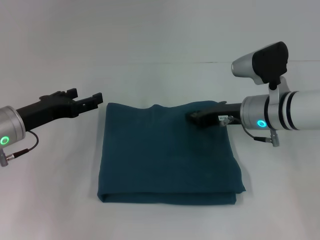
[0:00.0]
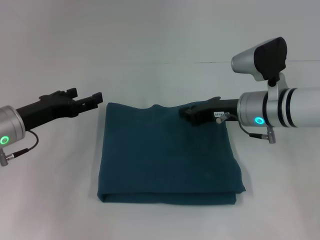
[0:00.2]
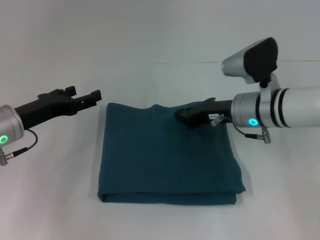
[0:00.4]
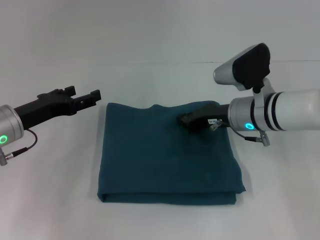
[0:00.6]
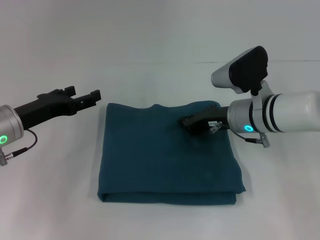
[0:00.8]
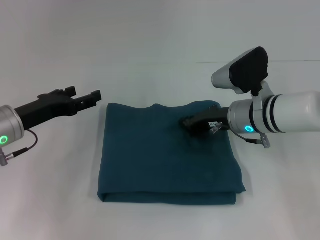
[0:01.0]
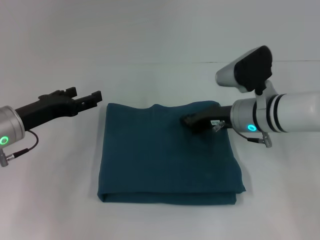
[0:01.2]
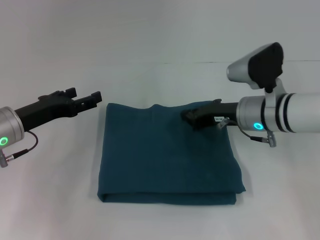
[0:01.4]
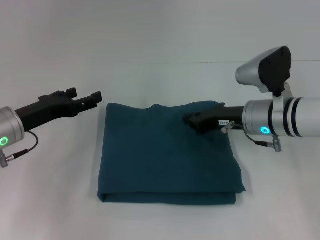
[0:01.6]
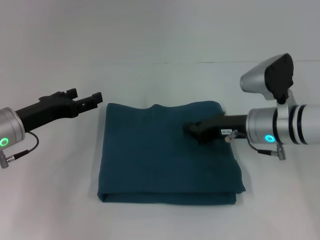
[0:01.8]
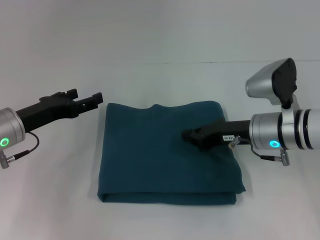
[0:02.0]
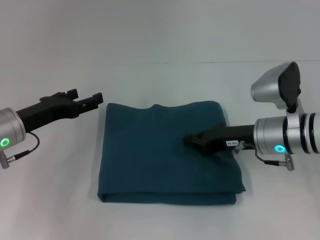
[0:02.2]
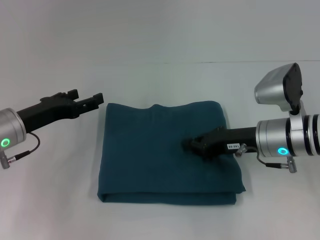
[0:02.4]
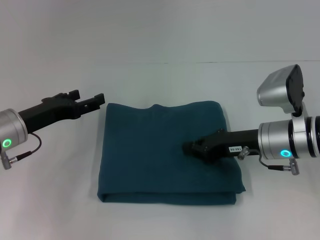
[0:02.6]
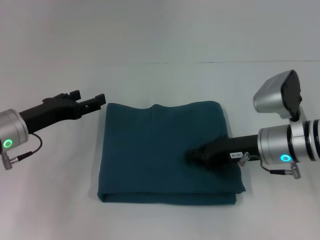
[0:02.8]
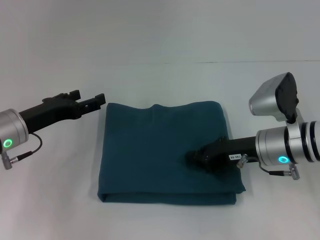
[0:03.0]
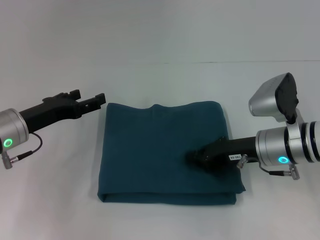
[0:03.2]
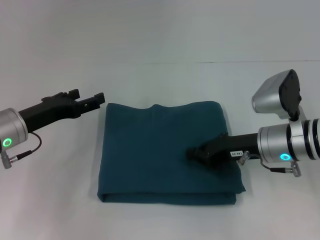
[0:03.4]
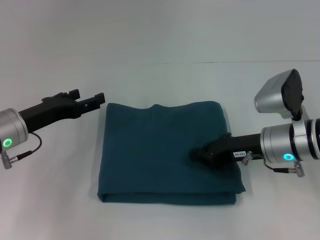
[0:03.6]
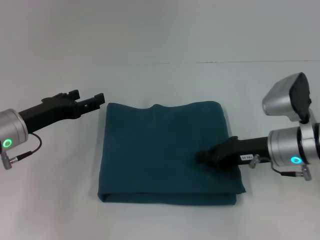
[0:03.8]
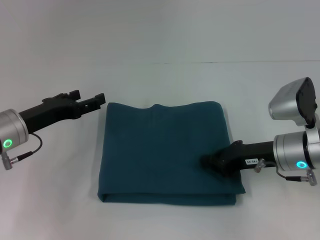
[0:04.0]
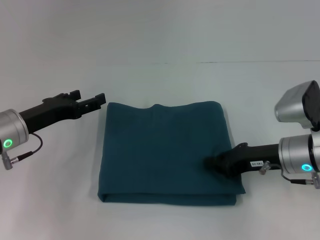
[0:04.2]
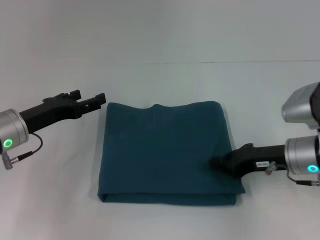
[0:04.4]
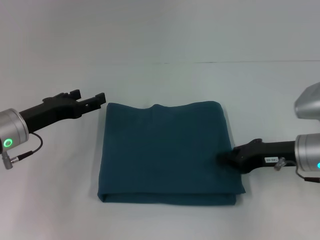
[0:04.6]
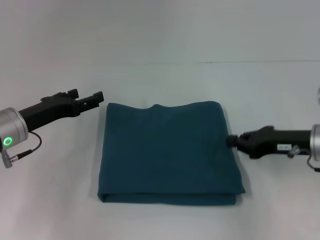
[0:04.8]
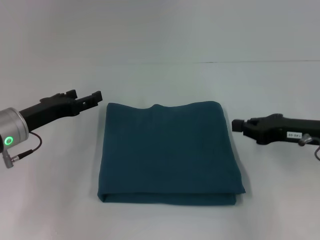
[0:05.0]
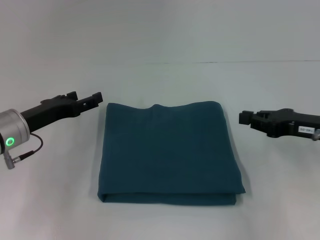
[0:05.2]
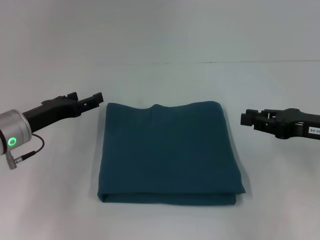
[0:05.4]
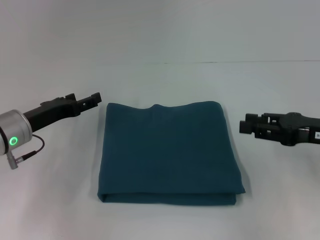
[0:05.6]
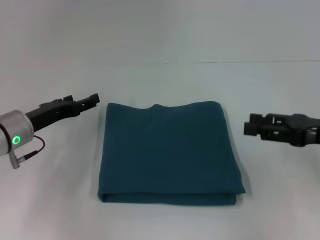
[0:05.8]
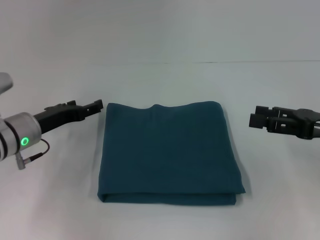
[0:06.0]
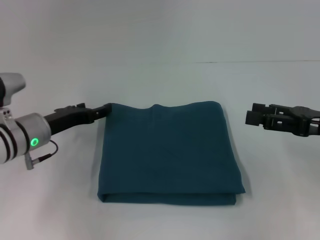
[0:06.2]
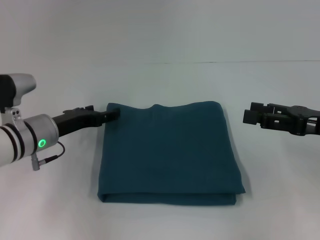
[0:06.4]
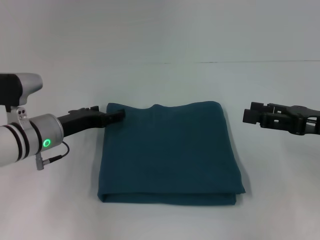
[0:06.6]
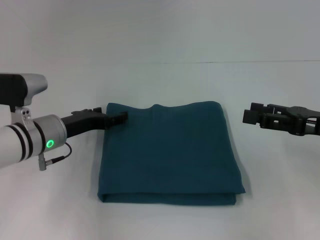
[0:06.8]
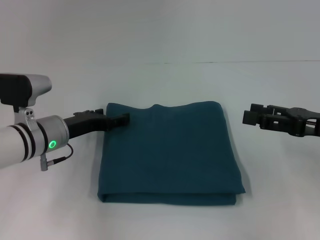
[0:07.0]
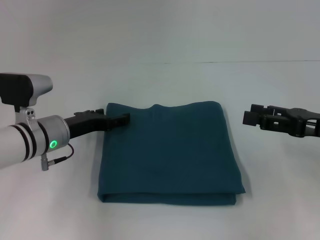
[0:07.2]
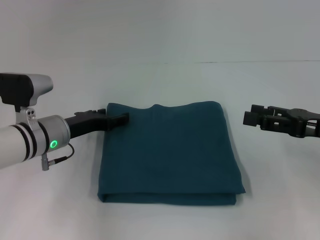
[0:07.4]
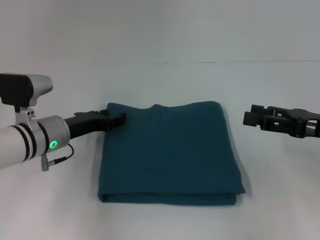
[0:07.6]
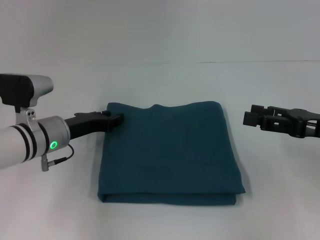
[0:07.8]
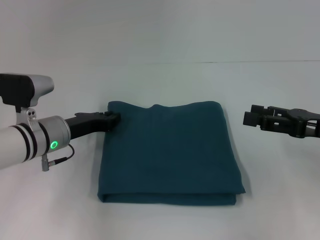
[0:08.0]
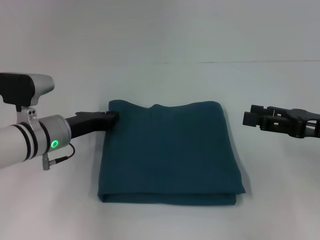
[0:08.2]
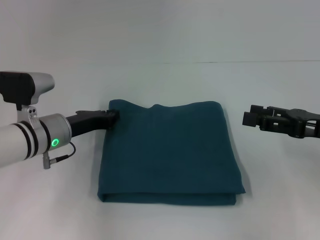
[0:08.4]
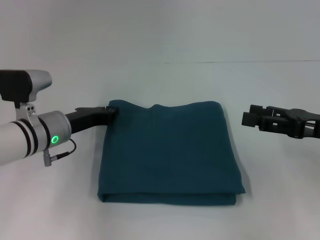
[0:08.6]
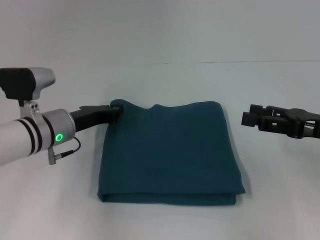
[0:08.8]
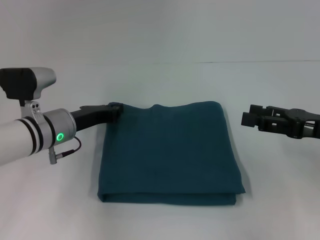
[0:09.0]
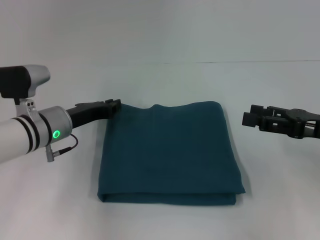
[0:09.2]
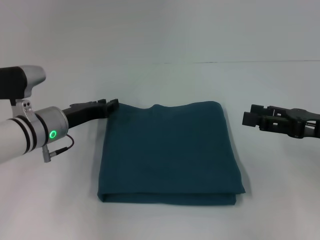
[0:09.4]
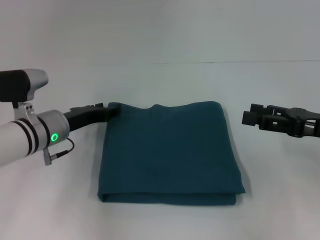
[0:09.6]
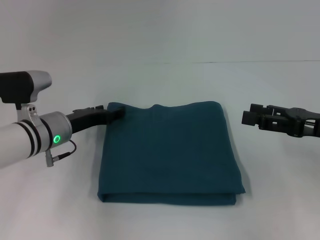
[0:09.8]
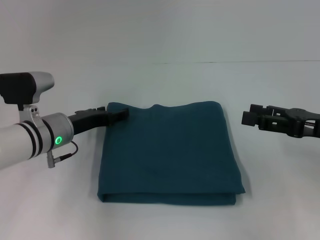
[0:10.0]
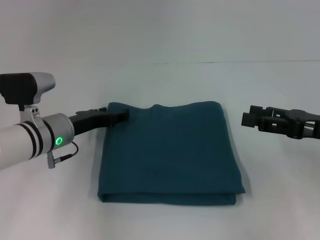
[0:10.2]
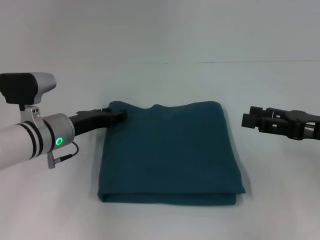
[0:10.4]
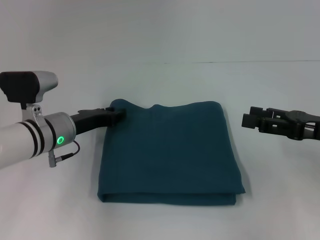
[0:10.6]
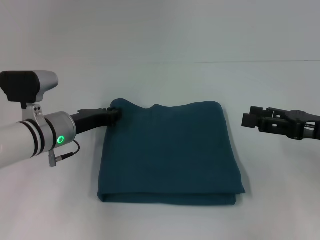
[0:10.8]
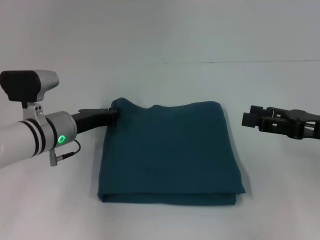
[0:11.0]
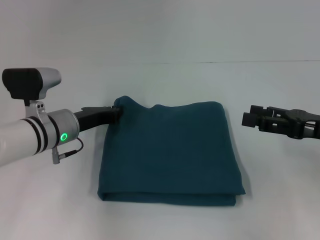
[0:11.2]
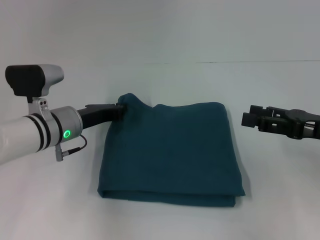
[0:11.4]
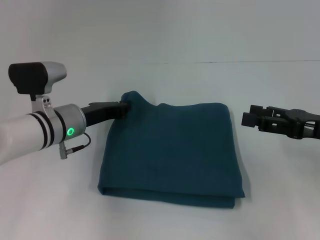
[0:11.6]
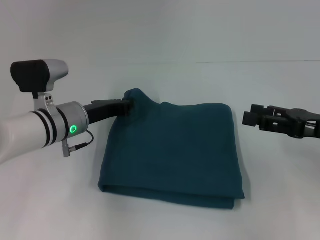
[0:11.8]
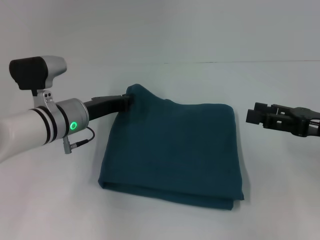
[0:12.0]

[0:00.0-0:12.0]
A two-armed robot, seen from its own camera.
0:00.0 to 0:03.0: The grippers stay close to where they were, moving slightly.
0:03.0 to 0:04.4: The grippers make only small movements.
0:04.4 to 0:06.0: The right gripper is displaced to the right and upward by approximately 10 cm, and opens.
0:06.0 to 0:07.6: The grippers make only small movements.
0:07.6 to 0:09.0: The left gripper closes.
0:09.0 to 0:10.4: The left gripper opens its fingers.
0:10.4 to 0:12.0: The left gripper closes up.

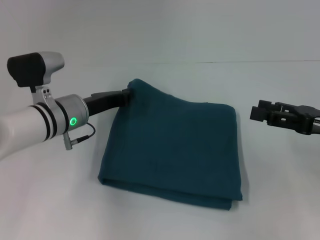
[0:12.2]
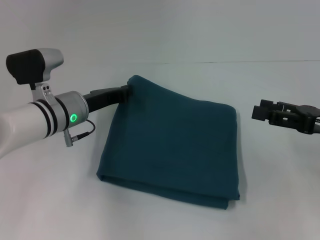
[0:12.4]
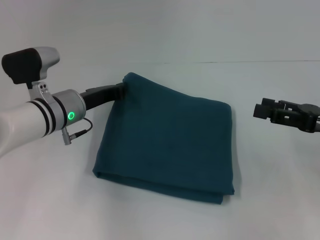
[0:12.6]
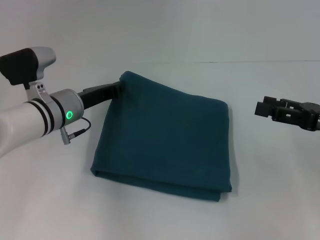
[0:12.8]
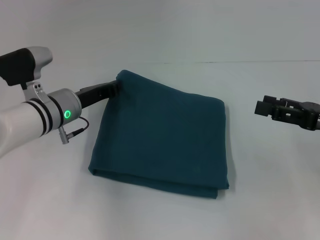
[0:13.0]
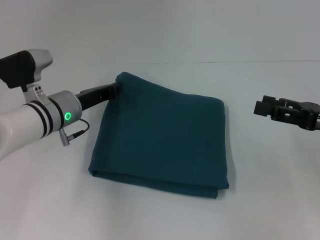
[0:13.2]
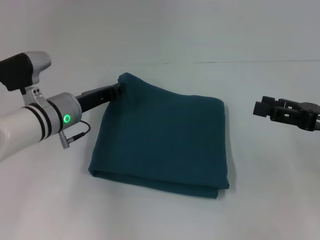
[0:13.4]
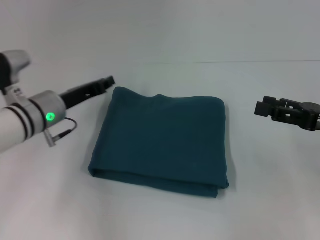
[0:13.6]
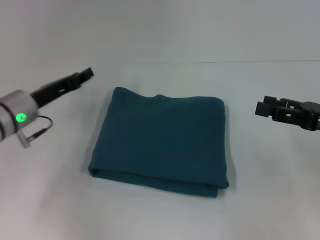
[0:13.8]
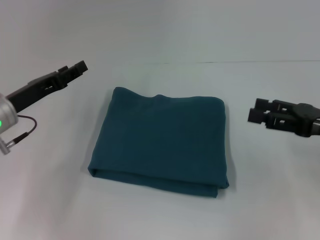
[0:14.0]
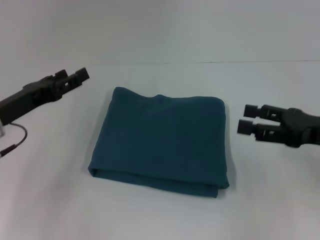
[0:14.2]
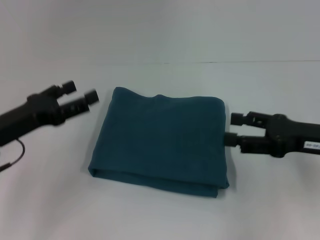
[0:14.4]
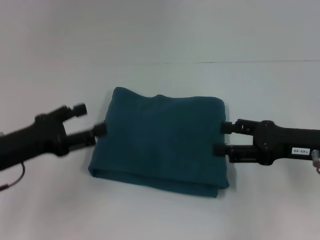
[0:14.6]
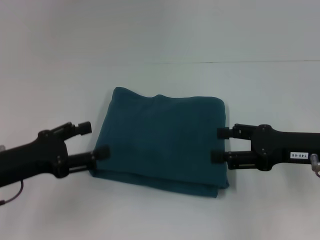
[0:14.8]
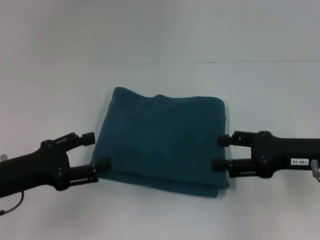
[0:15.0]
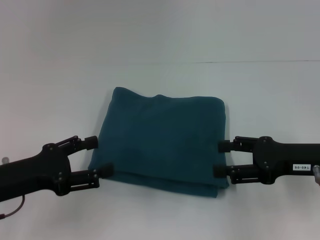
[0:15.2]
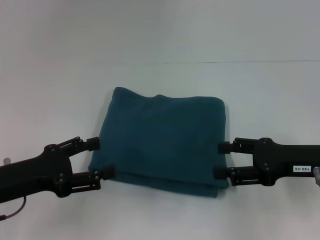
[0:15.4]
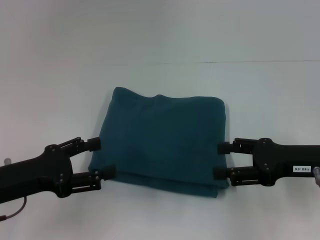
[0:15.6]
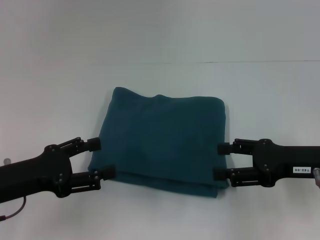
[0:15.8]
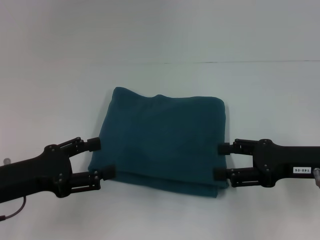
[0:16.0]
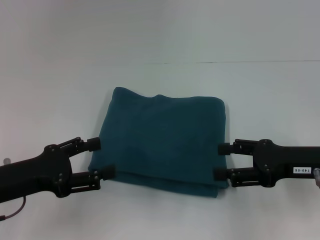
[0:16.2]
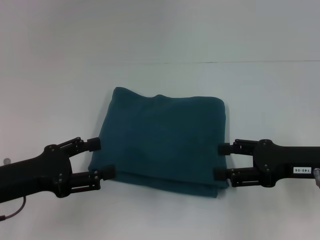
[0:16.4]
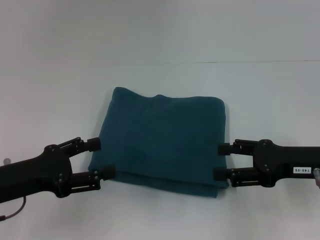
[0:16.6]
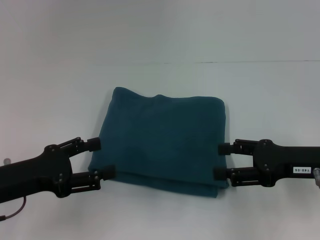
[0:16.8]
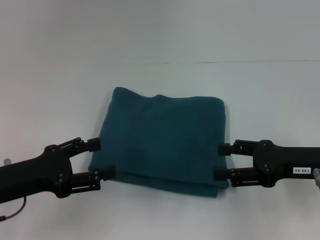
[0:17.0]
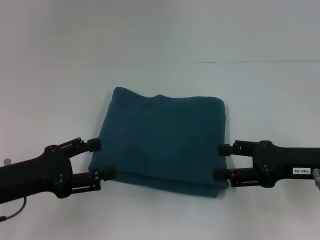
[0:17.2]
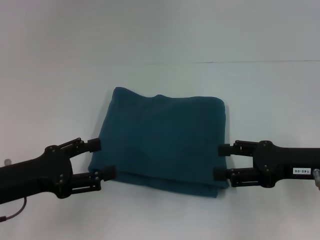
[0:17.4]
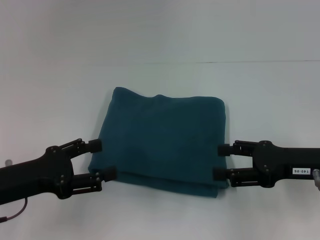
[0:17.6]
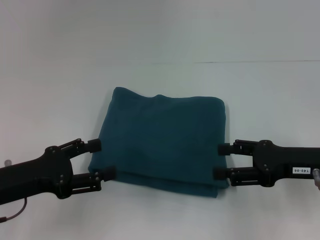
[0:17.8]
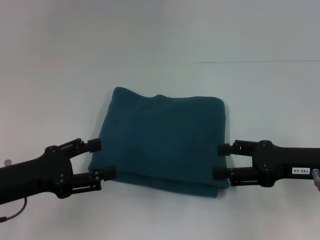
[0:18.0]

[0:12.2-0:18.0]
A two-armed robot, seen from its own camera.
0:12.2 to 0:13.6: The grippers make only small movements.
0:13.6 to 0:15.0: The right gripper shifts roughly 5 cm to the left, while the left gripper heads backward and to the left, covering approximately 15 cm, and opens.
0:15.0 to 0:18.0: Both grippers stay put.

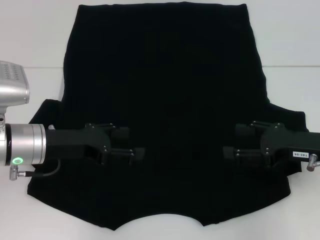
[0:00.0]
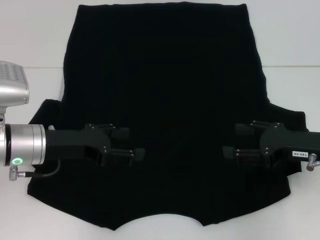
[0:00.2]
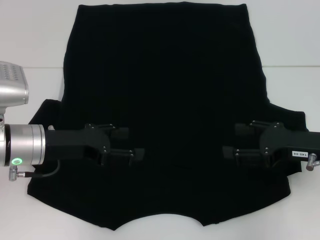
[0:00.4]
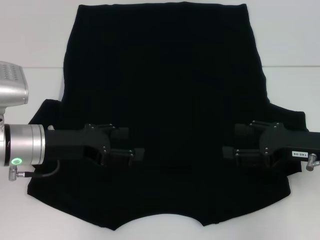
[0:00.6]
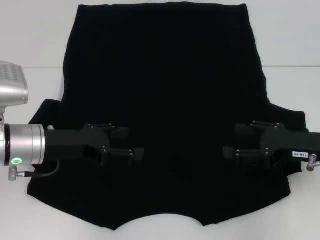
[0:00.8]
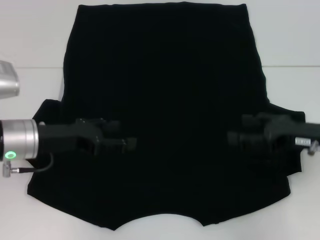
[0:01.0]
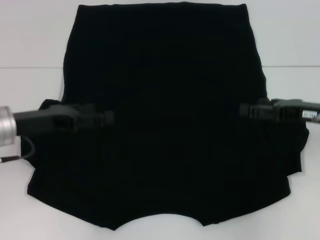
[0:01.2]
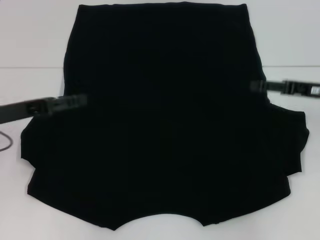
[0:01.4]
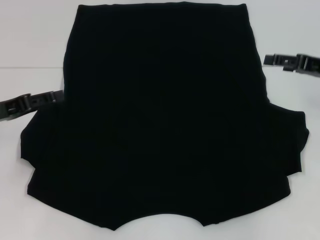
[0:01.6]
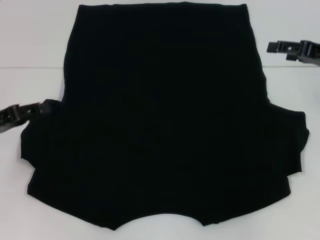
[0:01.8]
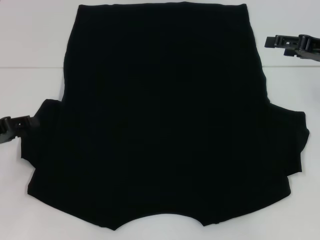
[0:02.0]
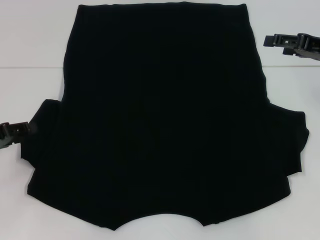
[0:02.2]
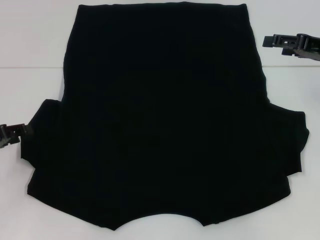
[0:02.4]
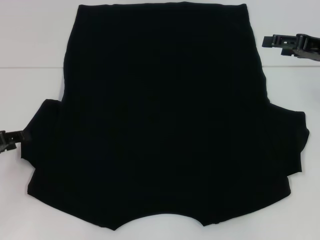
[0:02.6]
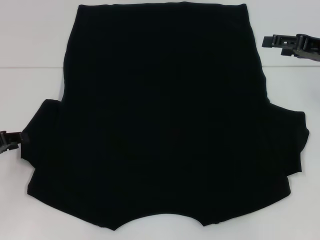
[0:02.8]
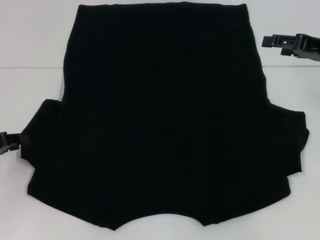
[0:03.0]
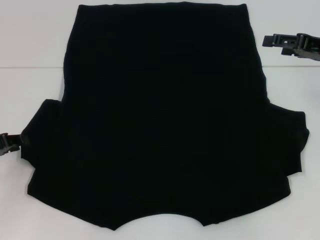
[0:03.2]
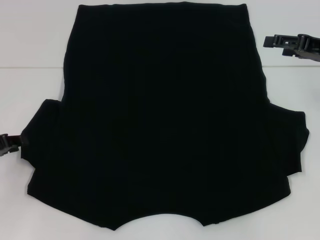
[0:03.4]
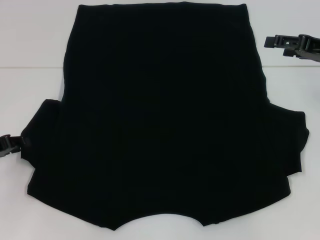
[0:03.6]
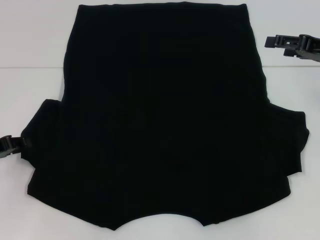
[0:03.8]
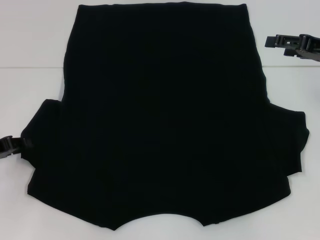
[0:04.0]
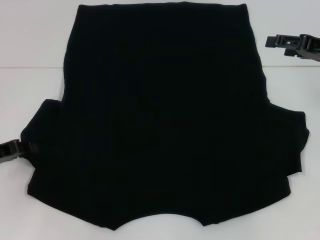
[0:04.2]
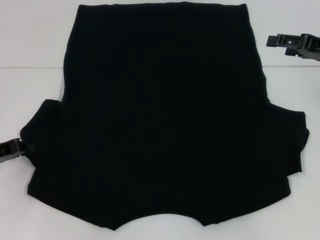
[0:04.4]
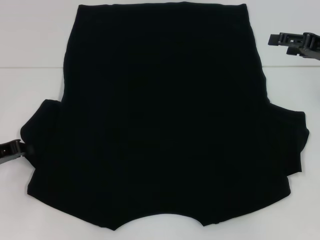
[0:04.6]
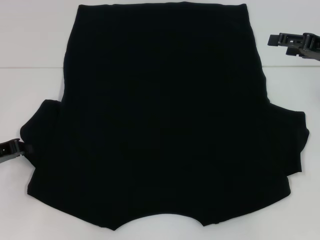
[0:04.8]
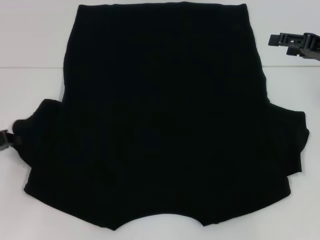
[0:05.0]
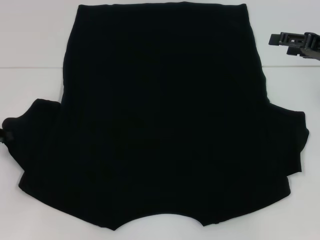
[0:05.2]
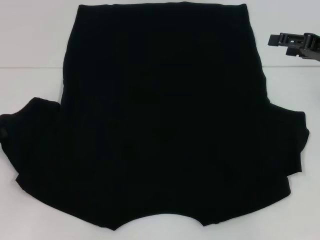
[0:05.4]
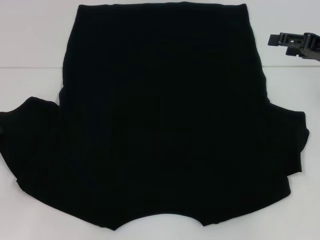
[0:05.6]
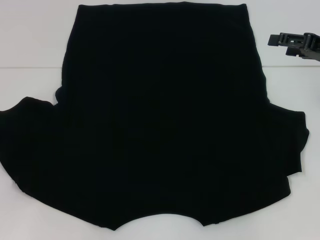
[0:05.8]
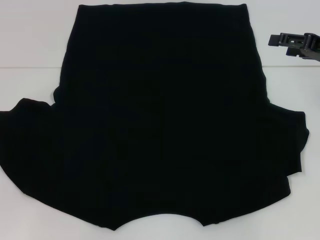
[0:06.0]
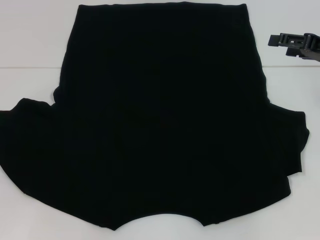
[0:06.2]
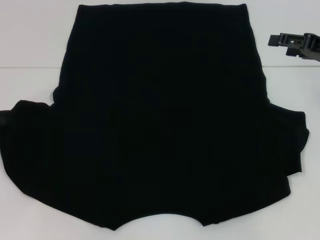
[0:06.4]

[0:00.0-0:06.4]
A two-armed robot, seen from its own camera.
0:00.0 to 0:01.6: The left gripper heads to the left, covering some 10 cm. The right gripper is displaced forward and upward by some 10 cm.
0:01.6 to 0:03.2: The left gripper shifts by some 5 cm, and closes up.
0:03.2 to 0:06.4: The grippers move only a little.
